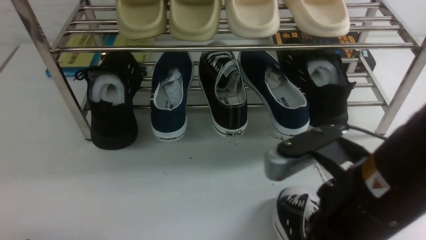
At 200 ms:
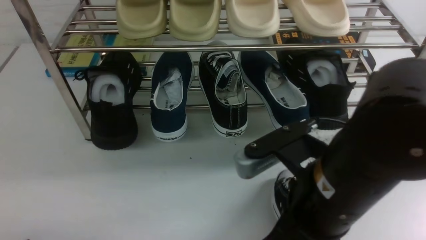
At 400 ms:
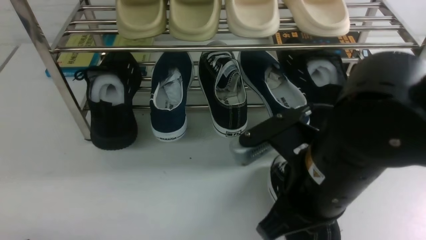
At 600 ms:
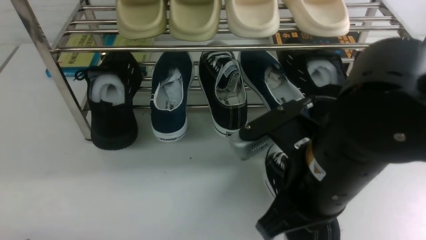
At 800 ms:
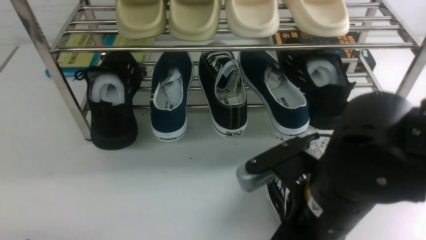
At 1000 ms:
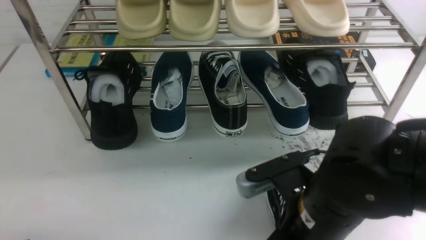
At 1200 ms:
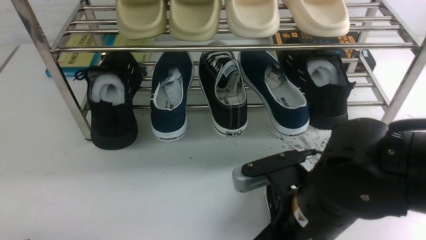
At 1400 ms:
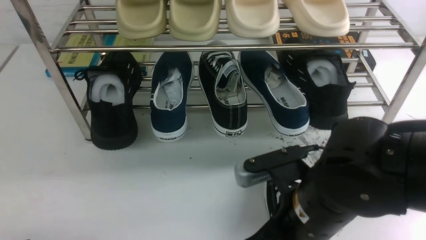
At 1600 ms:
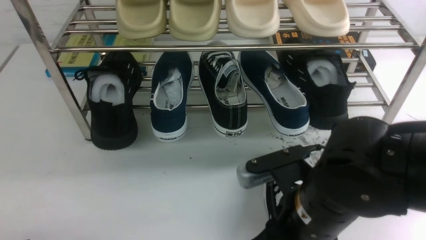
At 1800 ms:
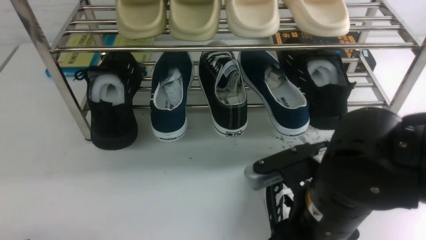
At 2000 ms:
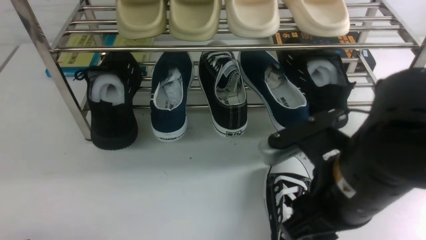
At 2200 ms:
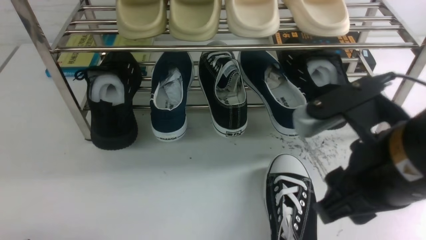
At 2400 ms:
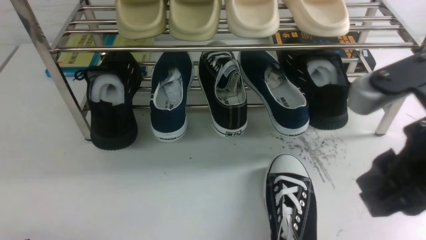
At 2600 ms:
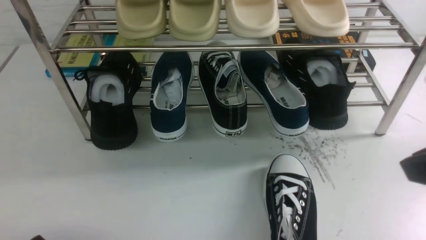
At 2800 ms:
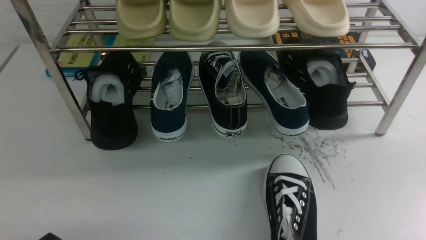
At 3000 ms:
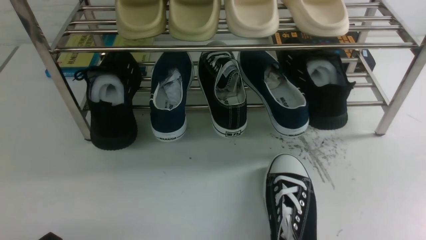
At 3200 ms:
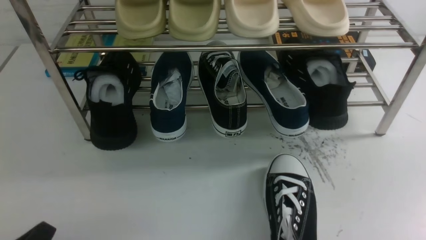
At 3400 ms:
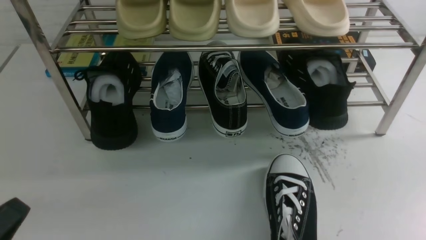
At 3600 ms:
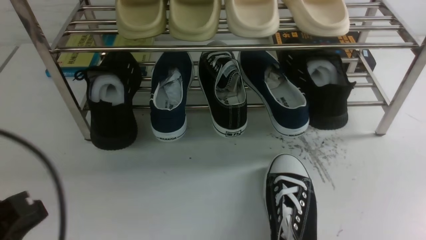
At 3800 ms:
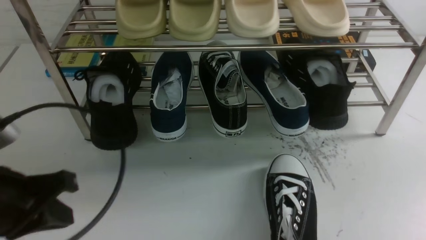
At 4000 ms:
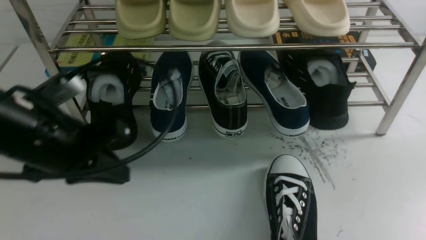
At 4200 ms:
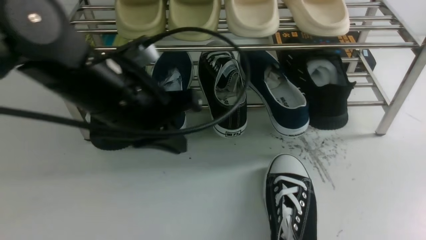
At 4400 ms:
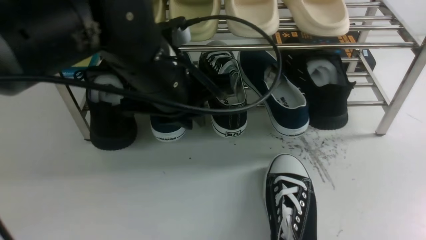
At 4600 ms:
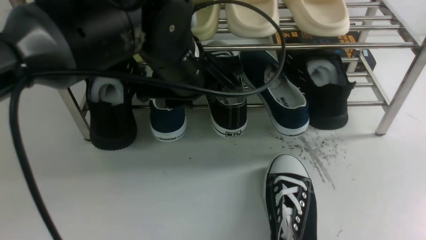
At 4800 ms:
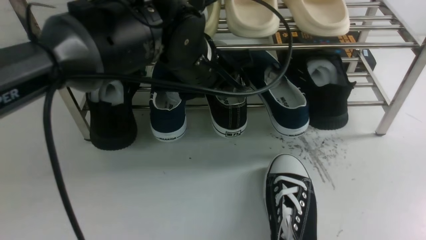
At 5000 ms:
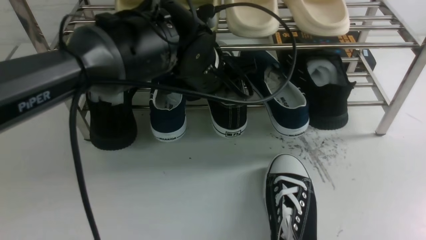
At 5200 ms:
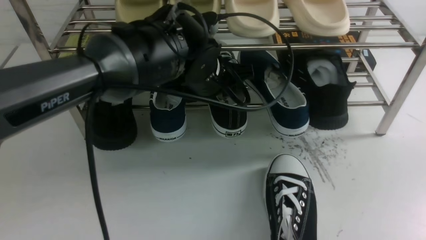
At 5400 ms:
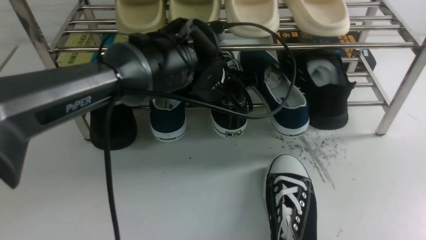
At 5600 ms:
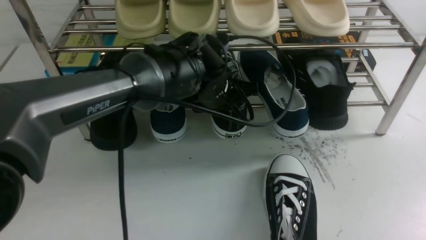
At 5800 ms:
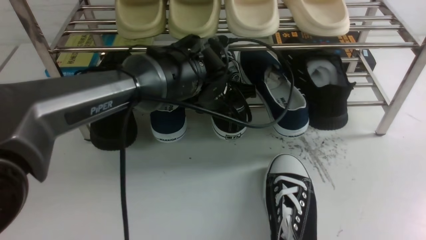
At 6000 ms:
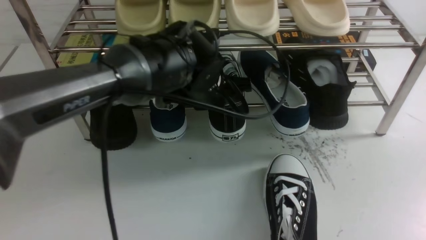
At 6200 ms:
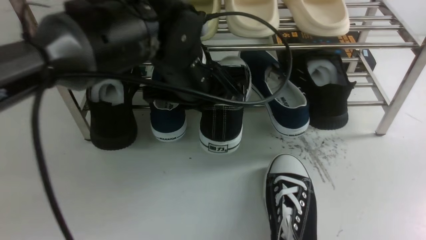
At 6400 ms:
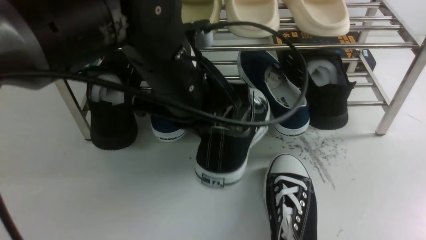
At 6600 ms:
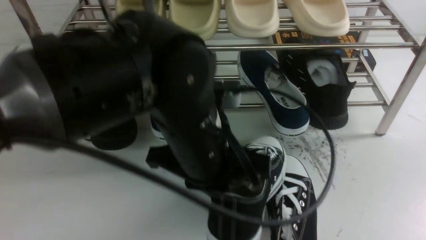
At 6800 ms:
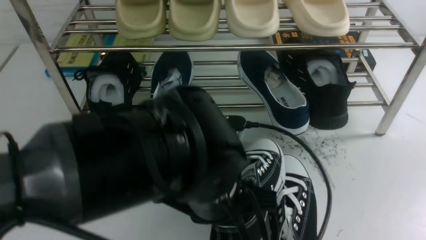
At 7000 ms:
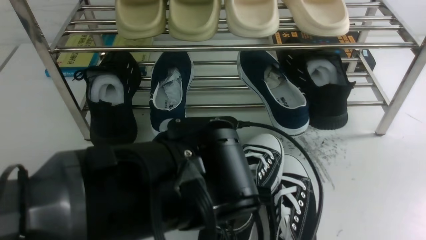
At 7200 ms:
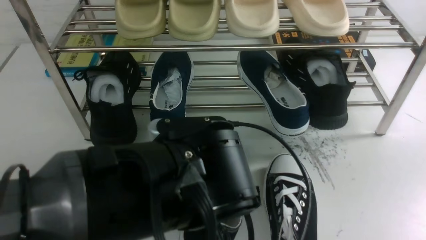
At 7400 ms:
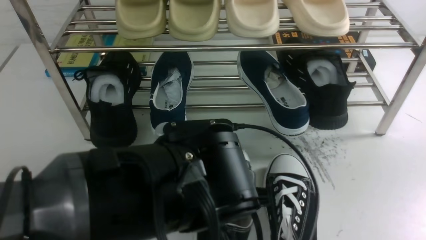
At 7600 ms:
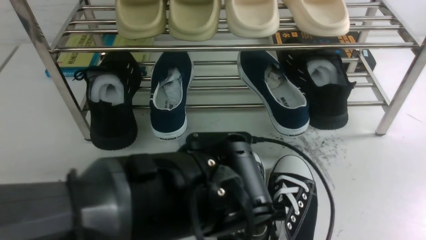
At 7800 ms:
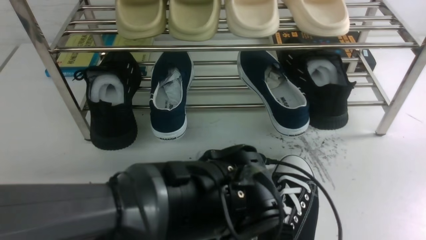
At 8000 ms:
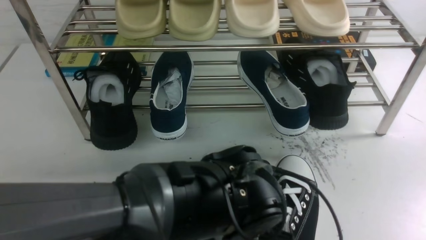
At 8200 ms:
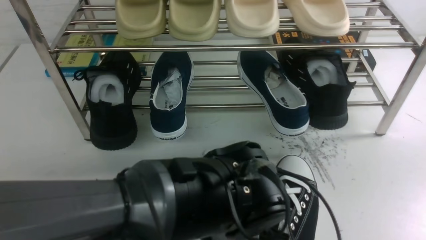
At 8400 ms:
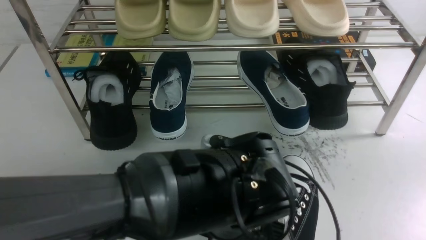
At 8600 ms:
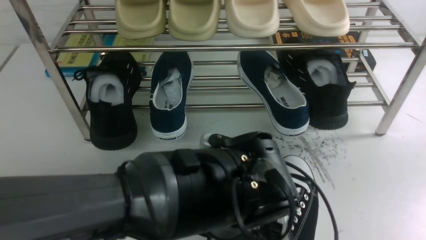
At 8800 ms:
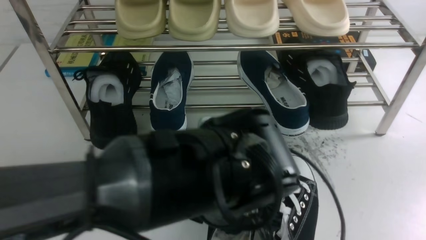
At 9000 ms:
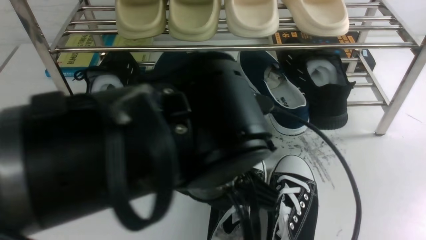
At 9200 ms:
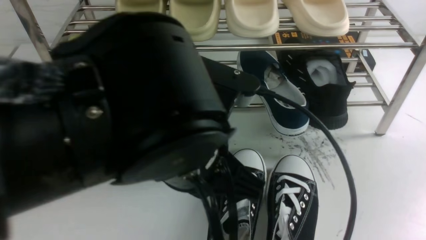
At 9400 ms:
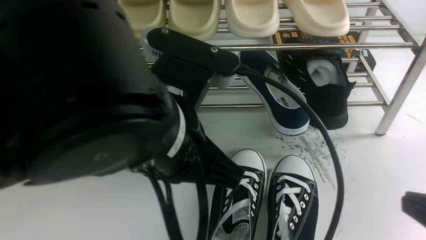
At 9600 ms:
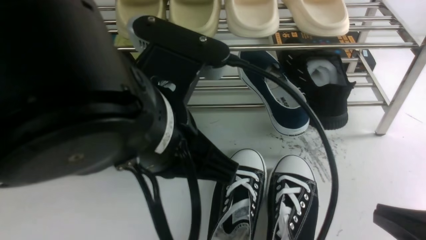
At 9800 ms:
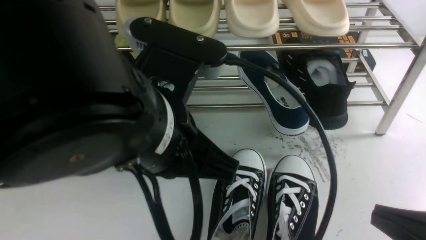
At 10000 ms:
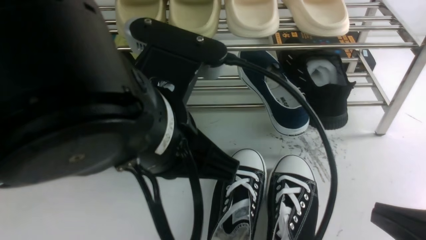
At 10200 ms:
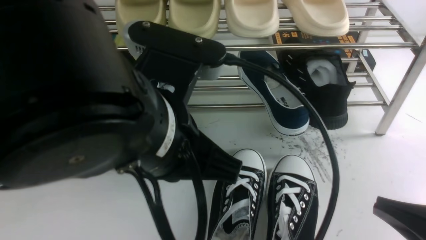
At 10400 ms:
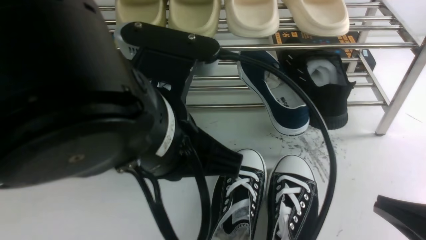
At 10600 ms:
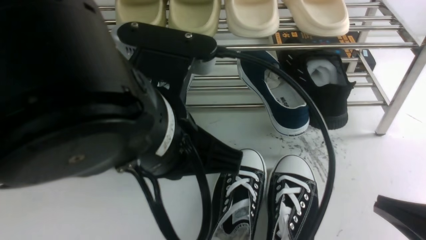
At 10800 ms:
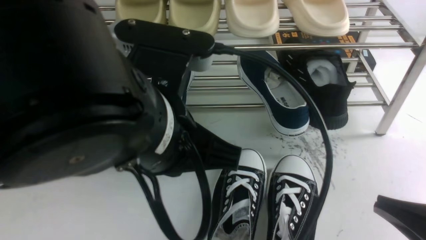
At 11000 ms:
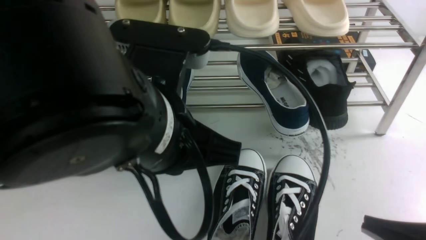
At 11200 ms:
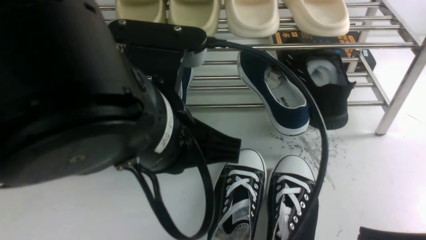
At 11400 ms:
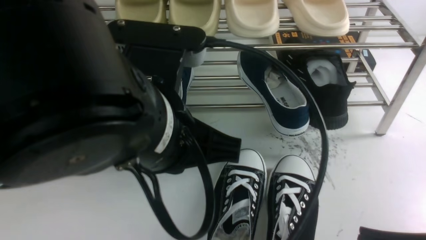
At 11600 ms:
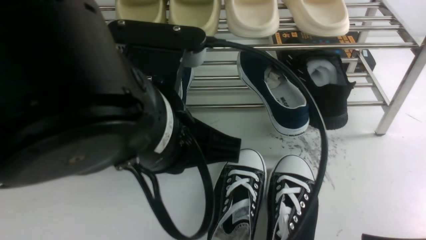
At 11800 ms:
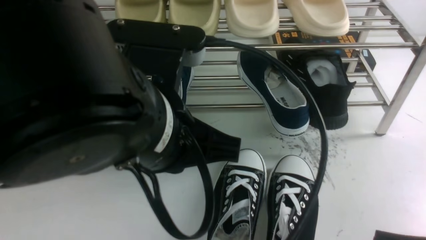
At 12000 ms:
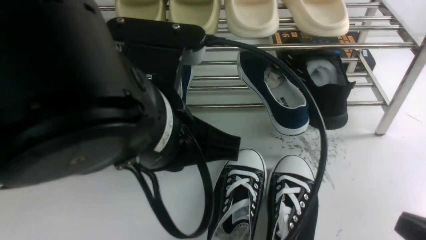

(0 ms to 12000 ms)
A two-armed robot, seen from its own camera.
Step, 0 ms - 1800 ms: use the right arm to take out the clamped shoe from the shoe rack and put it down.
Step, 2000 ms - 6200 ms: use the left arm to clamp a shoe in the middle of the shoe rack.
Step, 6400 ms - 8800 ms: Use your left arm to remove the clamped shoe from the shoe rack and put it down.
0 ms - 1600 ms: The right gripper moves downward, approximately 5 cm, and opens up.
1600 ms - 3000 ms: The right gripper shifts some 25 cm to the right, upward and backward, and closes its fingers.
3000 ms - 4400 ms: The left gripper is displaced forward, to the right and upward by about 35 cm, and closes and opens again.
4400 ms - 6000 ms: The left gripper is displaced forward and to the right by some 10 cm, and closes up.
6000 ms - 7600 ms: The left gripper moves backward, approximately 15 cm.
7600 ms - 9000 ms: The left gripper moves upward, roughly 10 cm, and opens its fingers.
9000 ms - 10400 ms: The right gripper shifts roughly 10 cm downward and to the left. Meanwhile the left gripper shifts some 5 cm upward, and closes its fingers.

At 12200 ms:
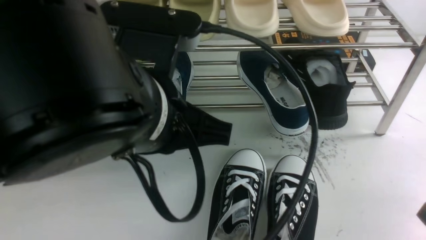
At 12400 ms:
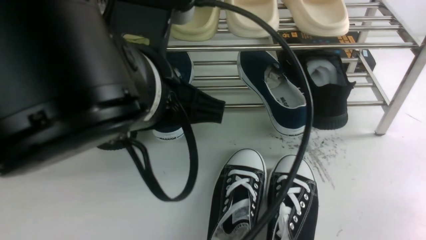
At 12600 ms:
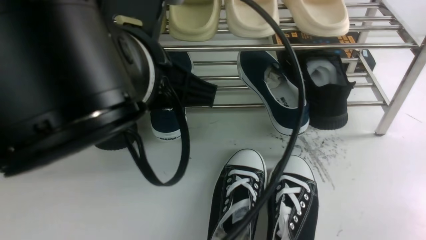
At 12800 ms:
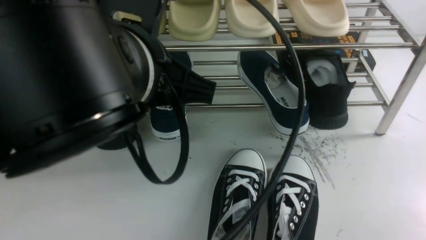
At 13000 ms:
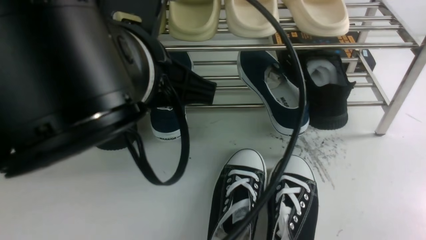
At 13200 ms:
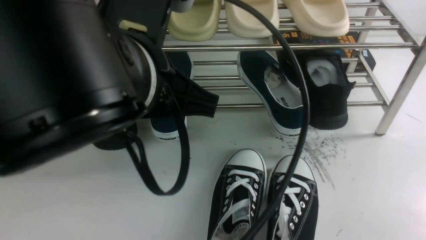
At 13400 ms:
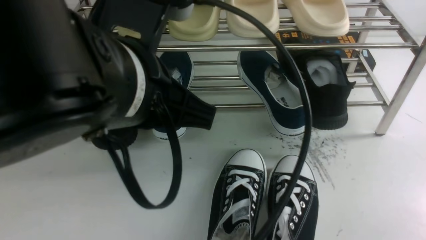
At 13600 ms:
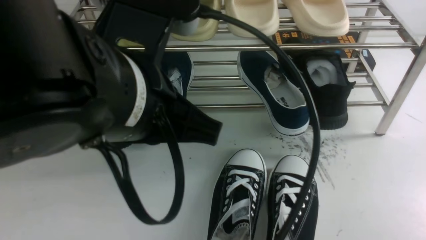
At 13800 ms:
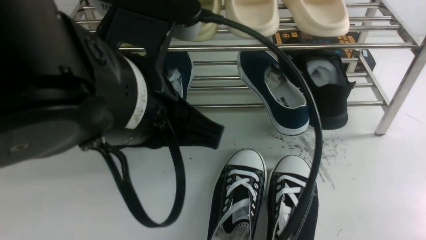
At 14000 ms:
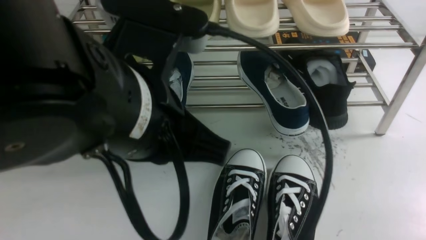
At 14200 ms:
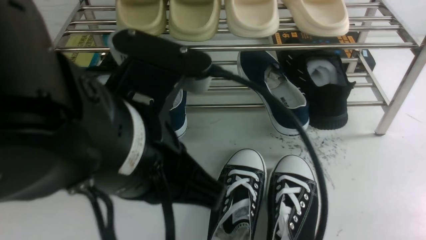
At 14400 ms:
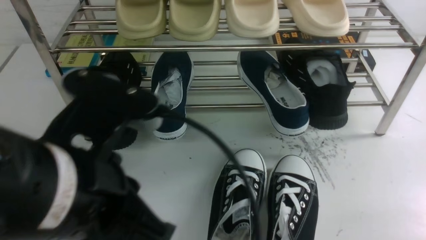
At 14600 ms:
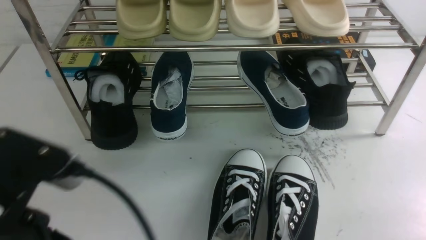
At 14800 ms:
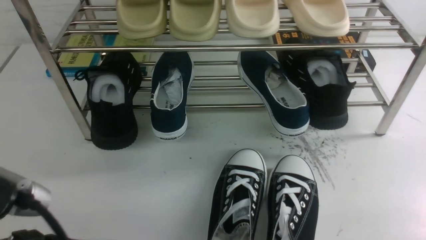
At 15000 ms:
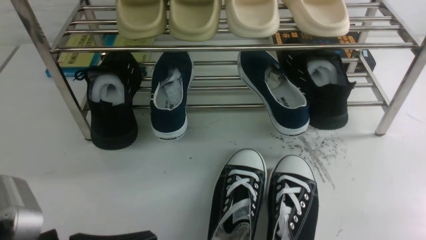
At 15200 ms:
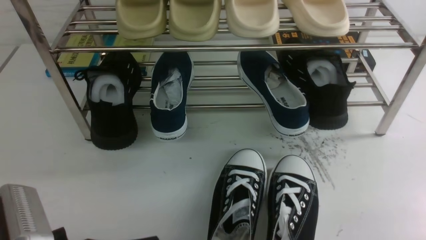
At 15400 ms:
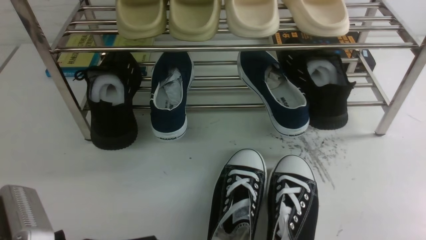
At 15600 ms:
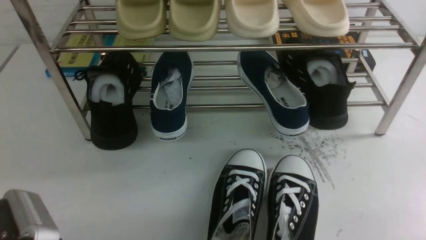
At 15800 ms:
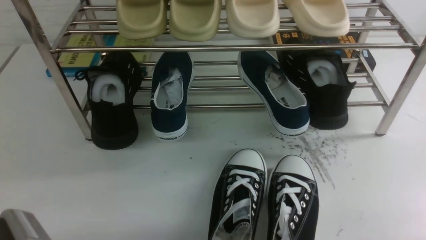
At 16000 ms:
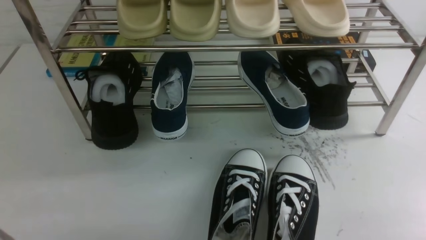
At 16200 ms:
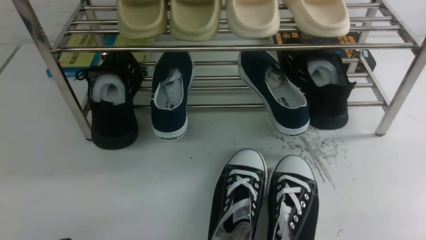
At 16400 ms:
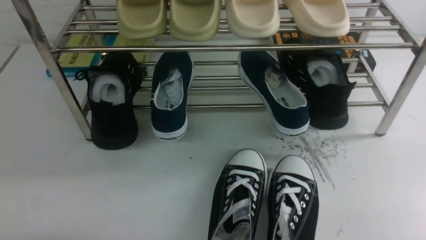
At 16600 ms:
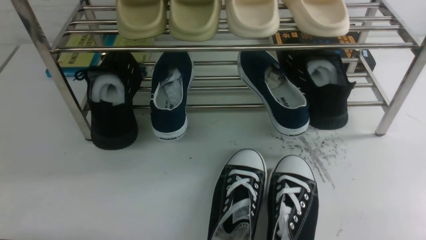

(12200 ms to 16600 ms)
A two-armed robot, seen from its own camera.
13600 ms - 15200 ms: The left gripper goes some 20 cm downward, to the left and backward.
15200 ms - 16600 ms: The left gripper moves to the left and downward, some 15 cm.
